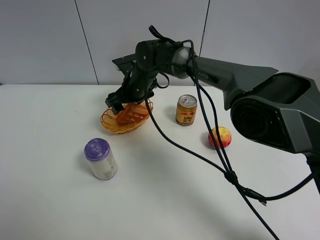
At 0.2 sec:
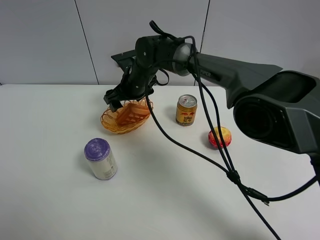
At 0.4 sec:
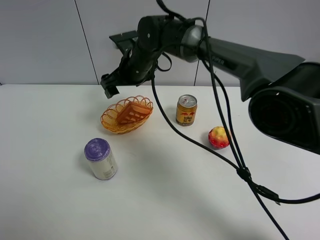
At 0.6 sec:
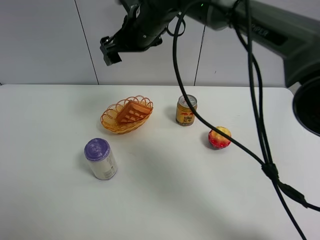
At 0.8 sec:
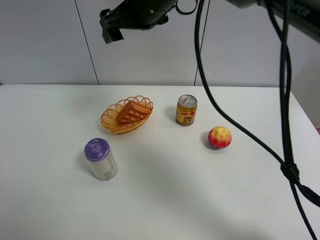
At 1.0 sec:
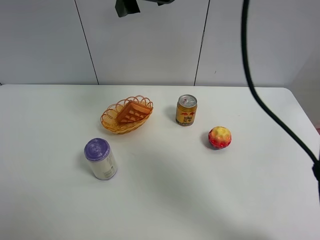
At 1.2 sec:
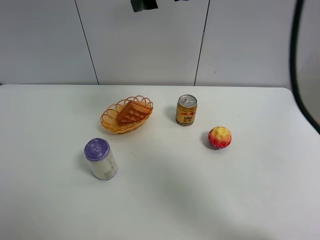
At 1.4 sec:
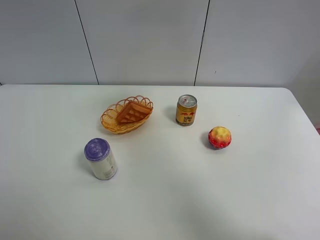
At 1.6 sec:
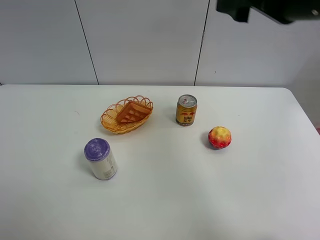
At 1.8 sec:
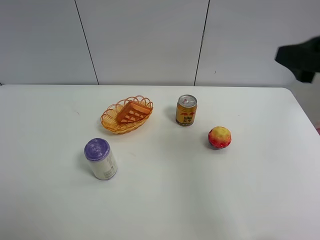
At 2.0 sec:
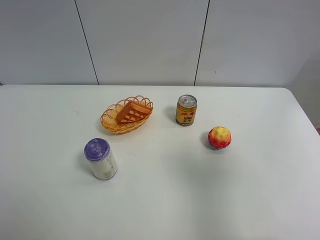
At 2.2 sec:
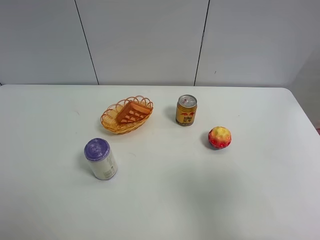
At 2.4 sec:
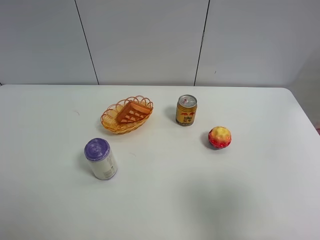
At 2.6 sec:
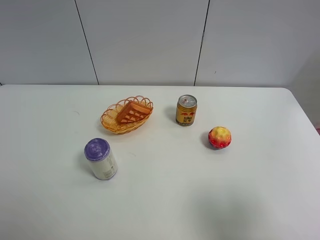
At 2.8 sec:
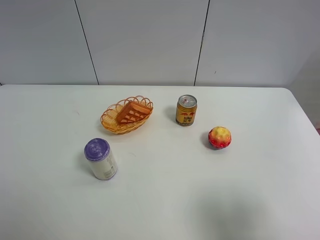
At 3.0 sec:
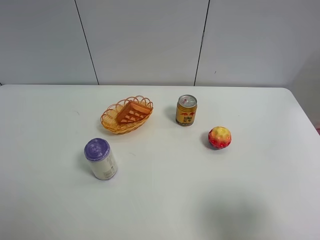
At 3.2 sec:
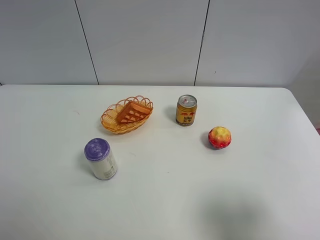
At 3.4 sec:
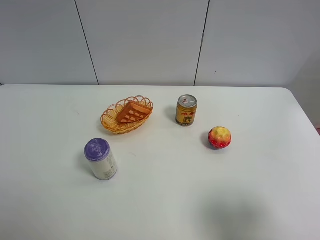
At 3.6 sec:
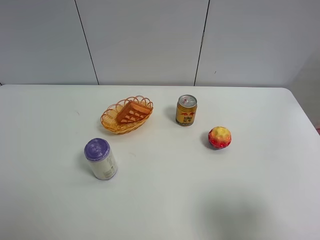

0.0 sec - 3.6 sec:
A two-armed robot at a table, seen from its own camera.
Task of the whole recording: Put the bakery in the basket.
0.0 sec - 1.8 sec: The right gripper moves to the right, backward and upward, approximately 50 cm, and opens.
1.8 sec - 3.6 sec: The right gripper is displaced backward and downward by roughly 15 cm.
